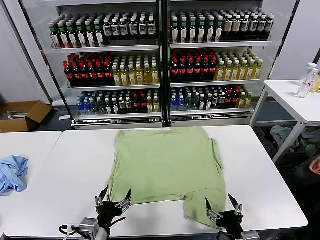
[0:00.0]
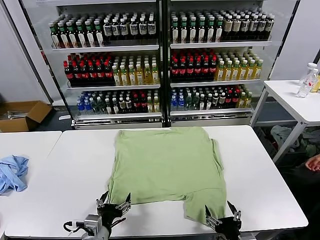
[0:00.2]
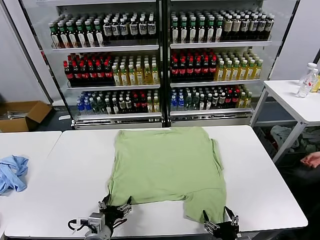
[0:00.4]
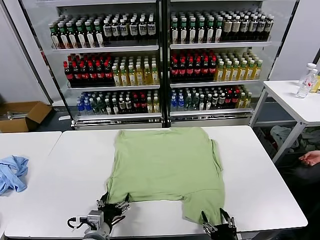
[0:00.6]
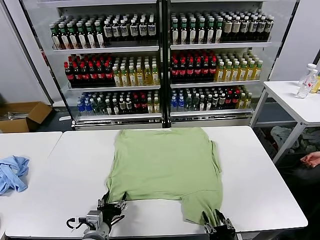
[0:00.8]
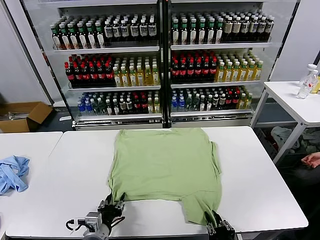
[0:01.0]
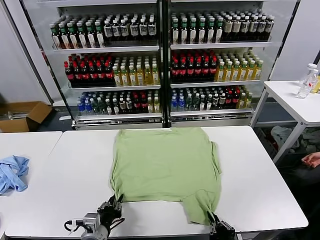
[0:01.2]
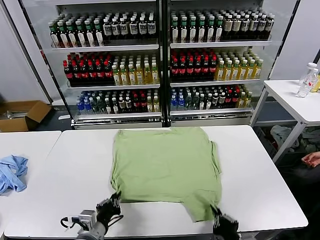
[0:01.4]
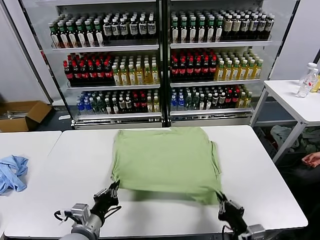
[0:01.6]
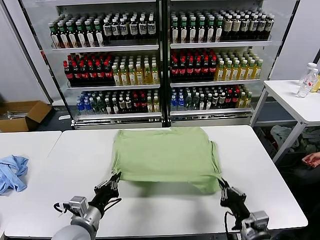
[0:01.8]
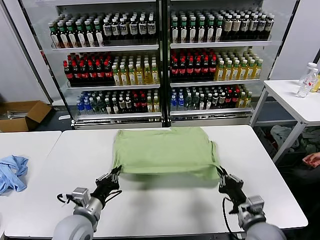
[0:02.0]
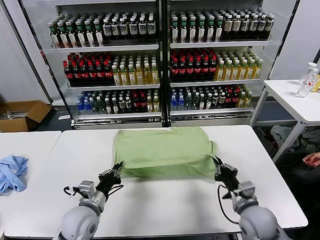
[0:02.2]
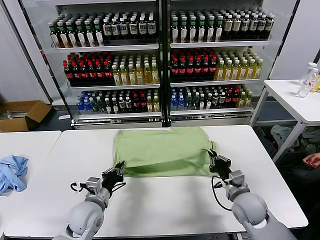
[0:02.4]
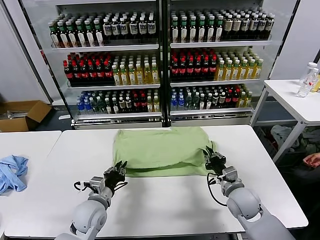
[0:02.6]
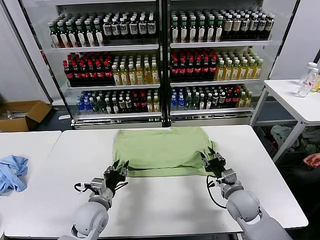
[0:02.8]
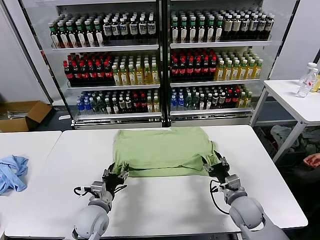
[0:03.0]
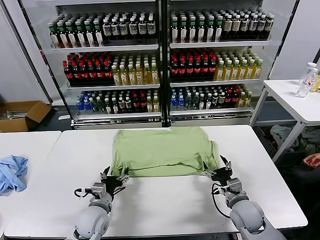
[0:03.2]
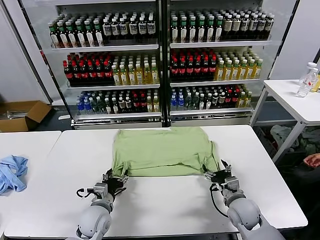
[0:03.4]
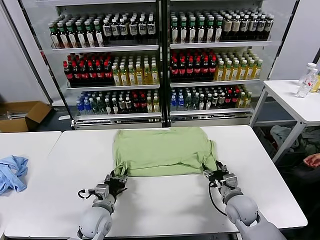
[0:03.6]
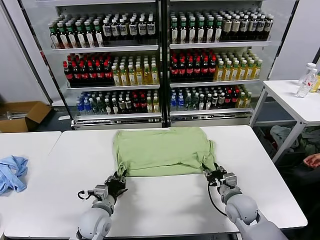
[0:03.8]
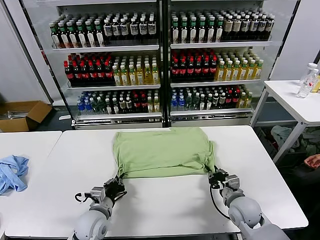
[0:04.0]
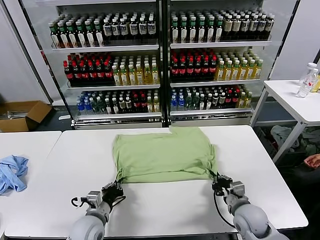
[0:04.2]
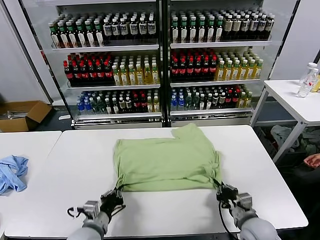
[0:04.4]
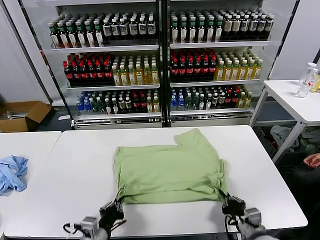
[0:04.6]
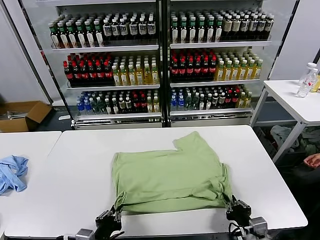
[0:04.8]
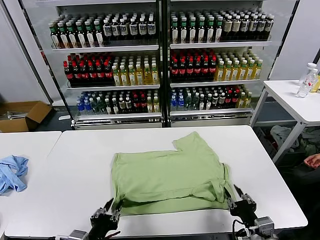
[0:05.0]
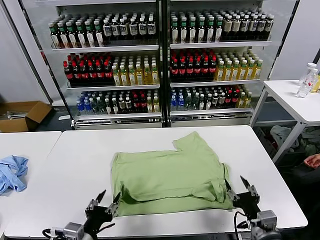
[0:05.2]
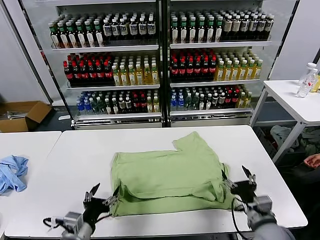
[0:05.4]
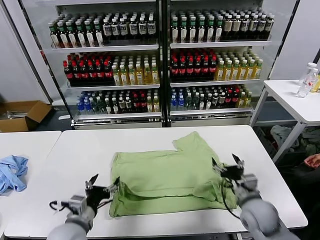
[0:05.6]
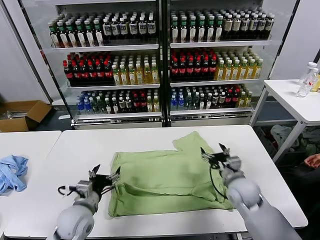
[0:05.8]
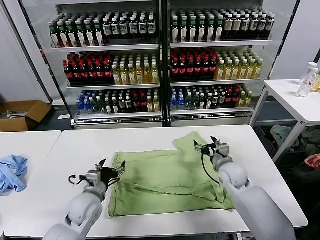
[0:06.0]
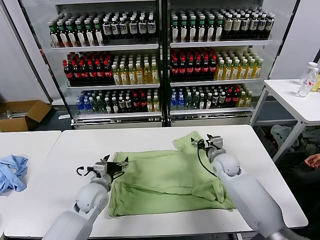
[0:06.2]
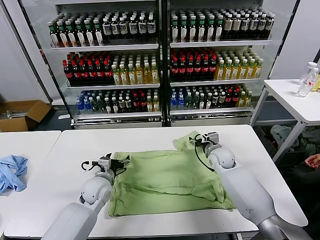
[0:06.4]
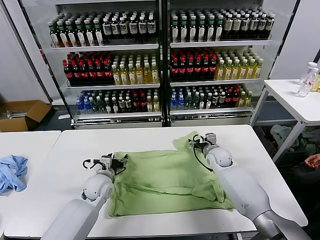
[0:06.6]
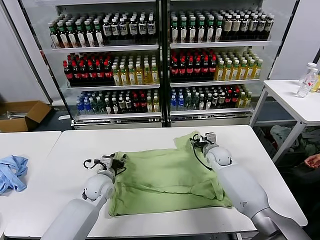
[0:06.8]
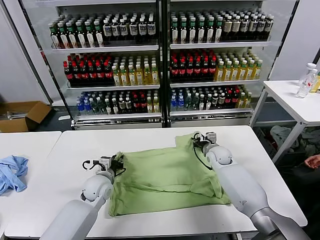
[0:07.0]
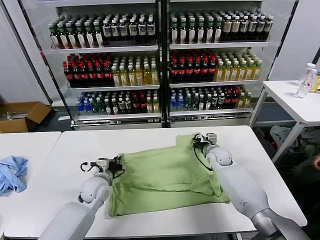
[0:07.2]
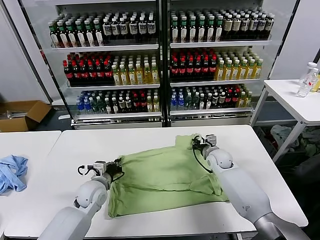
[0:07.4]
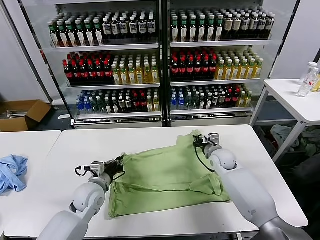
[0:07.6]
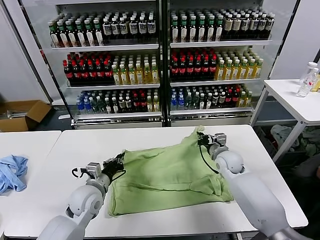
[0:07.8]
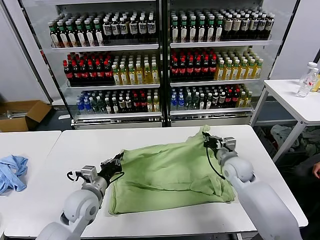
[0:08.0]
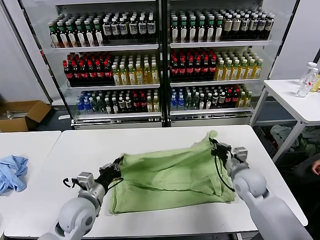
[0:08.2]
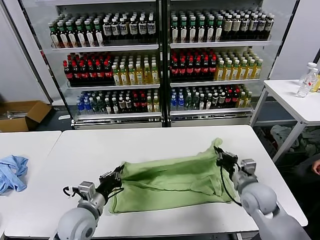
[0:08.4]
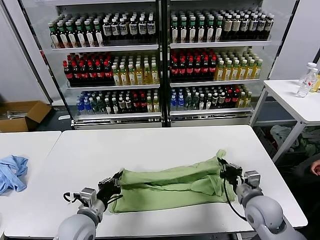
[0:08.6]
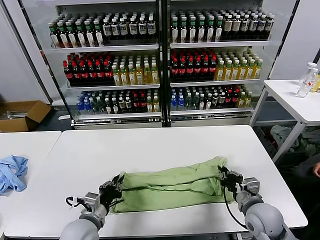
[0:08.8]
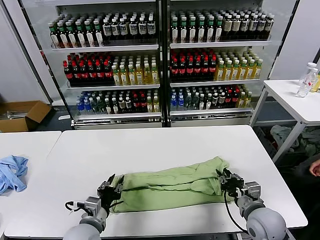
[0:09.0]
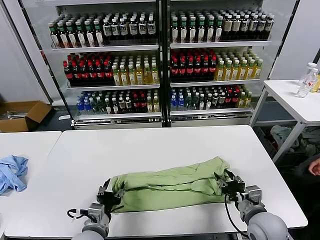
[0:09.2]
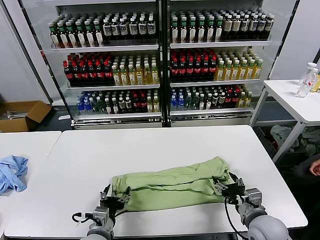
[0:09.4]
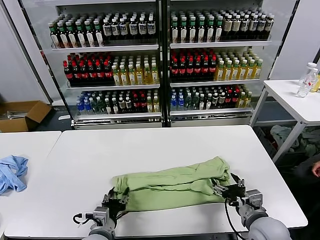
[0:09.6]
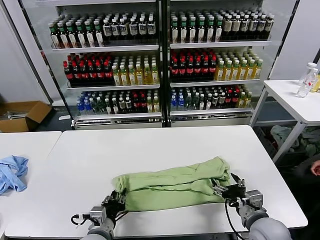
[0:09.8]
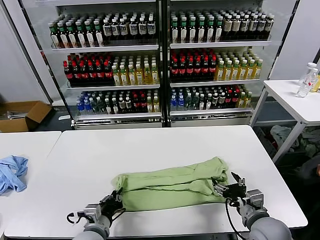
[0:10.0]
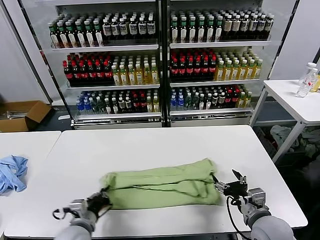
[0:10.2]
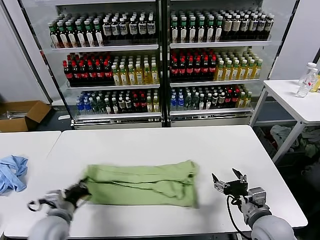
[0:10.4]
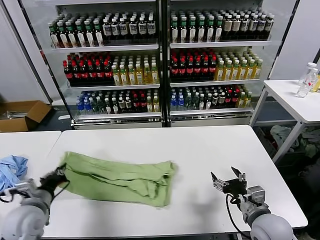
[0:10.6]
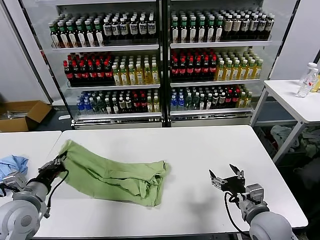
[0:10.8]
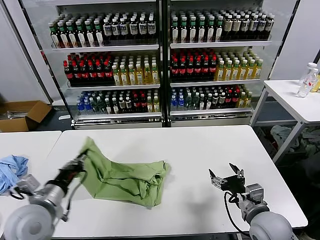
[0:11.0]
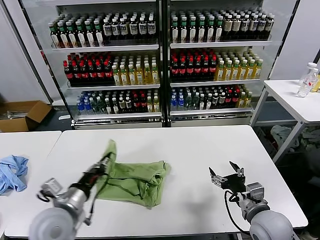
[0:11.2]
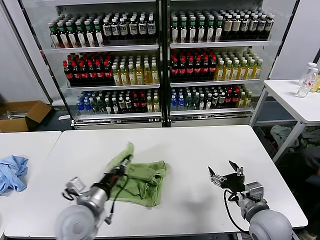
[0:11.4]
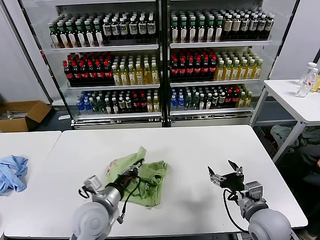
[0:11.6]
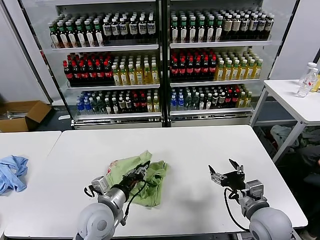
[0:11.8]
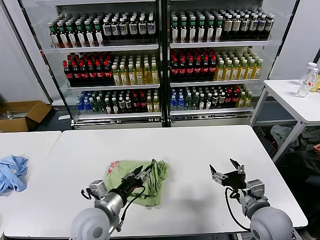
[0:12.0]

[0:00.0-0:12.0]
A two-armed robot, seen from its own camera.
Task of the whole recording: fold and organize the clothes.
Step, 0:00.0 to 0:01.4: use both grippers simultaneously to clamp the lower edge of the clothing fabric.
Step, 0:01.6 to 0:03.2: use both grippers to drag the lower edge of the fabric forward and fold it over the upper edge.
Step, 0:03.4 to 0:05.2: Drag the clothes downward with both gripper.
Step, 0:05.4 to 0:07.2: use both grippers simultaneously to clamp the upper edge of the clothing fabric.
Step, 0:07.4 to 0:09.2: use both grippers to drag the upper edge of the fabric backward and fold it over the lower edge.
Step, 0:09.4 to 0:10.0: use the left gripper to clamp the left edge of the fabric.
Step, 0:10.2 to 0:12.0: use the left gripper to drag the left edge of the fabric to the left and folds it over the right edge.
0:01.6 to 0:03.0: The left gripper moves forward and downward, roughly 10 cm, and opens up, while the right gripper shifts roughly 15 cm forward, and opens up.
0:03.0 to 0:04.4: Both grippers travel together backward, roughly 10 cm. The left gripper closes its fingers. Meanwhile the right gripper closes its fingers.
0:04.4 to 0:06.0: The left gripper moves forward, some 10 cm, and opens. Meanwhile the right gripper is displaced forward by about 25 cm, and opens.
0:06.0 to 0:07.6: The right gripper closes its fingers. Meanwhile the left gripper closes its fingers.
0:07.6 to 0:09.0: The right gripper travels backward by roughly 25 cm, and opens, while the left gripper moves backward, about 15 cm, and opens up.
0:09.0 to 0:10.4: The left gripper is displaced to the left by roughly 10 cm, and closes its fingers; the right gripper opens.
0:10.4 to 0:12.0: The left gripper shifts about 15 cm to the right, and opens its fingers.

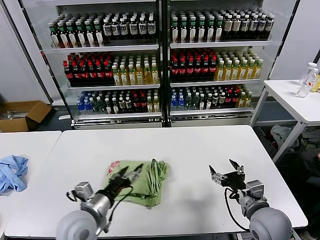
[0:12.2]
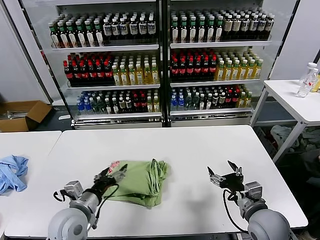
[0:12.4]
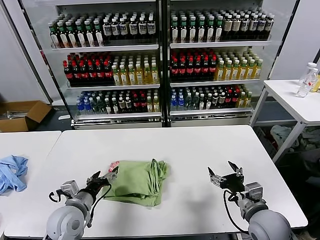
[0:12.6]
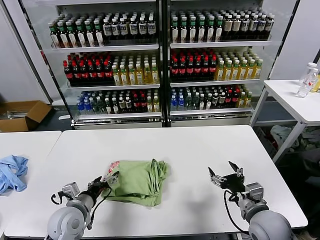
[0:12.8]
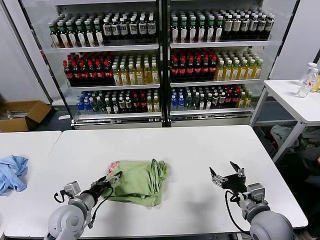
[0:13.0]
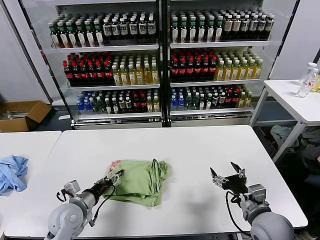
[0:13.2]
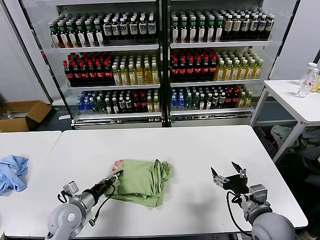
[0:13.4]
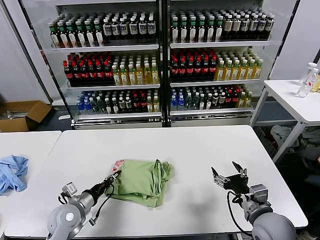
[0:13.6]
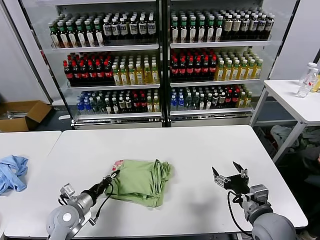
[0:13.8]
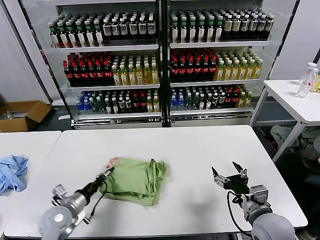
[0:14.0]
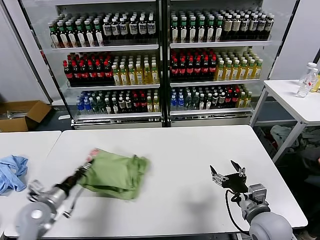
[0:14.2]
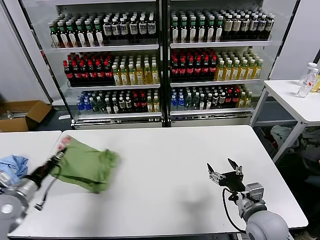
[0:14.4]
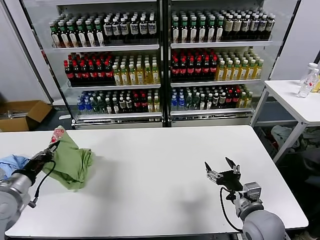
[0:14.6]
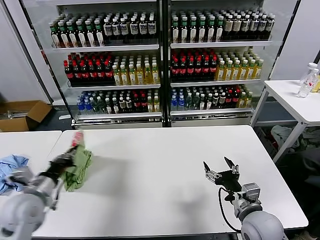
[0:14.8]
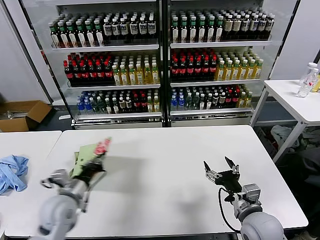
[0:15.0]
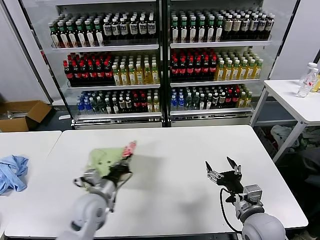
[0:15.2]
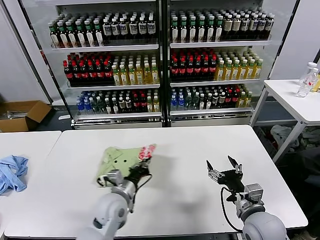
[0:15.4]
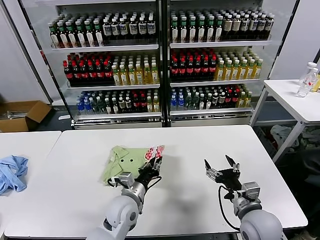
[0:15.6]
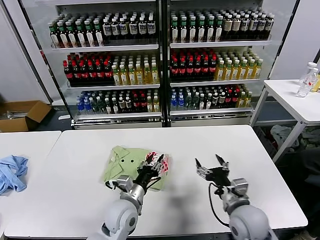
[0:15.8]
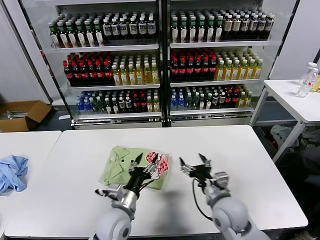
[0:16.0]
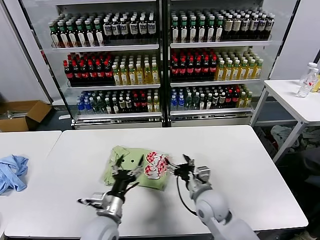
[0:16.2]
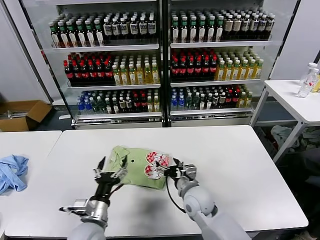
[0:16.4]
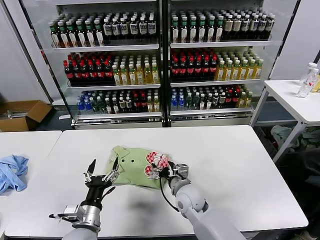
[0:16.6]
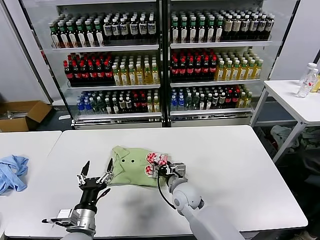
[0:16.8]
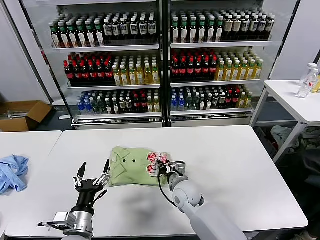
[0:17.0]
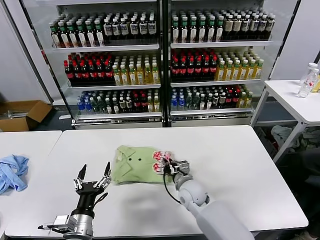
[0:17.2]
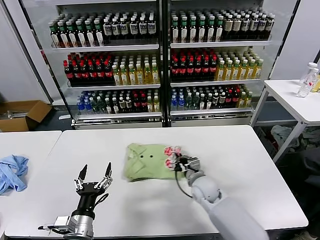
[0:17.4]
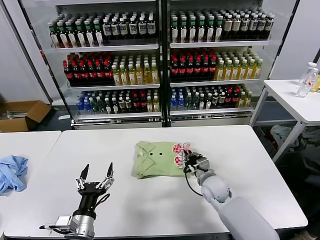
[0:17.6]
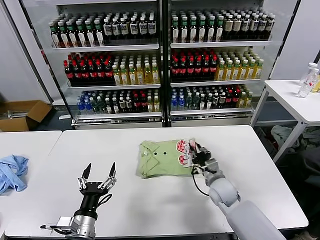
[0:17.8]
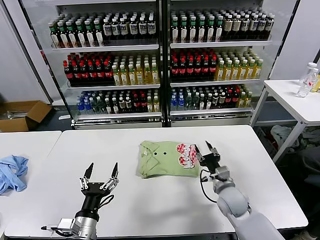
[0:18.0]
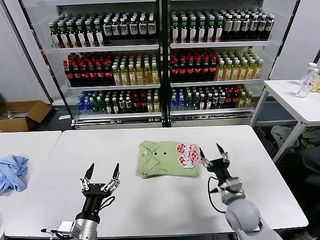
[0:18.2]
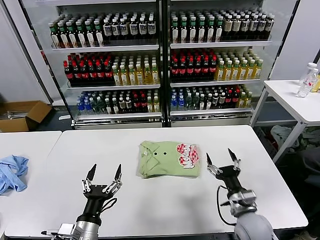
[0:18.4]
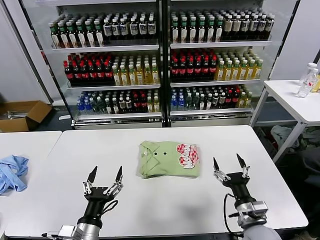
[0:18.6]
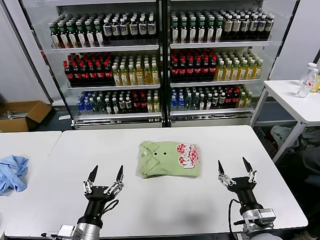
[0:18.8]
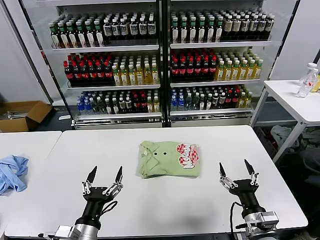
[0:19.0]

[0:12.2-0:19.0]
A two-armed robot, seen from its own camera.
Task of the whole recording: fold and organize the clothes.
Step, 0:12.2 to 0:15.8: Flip the folded clothes over with left gripper.
Step, 0:16.0 to 0:17.8: Drag the clothes to the center of the table.
0:12.2 to 0:13.6: The left gripper is displaced to the left, downward and forward by approximately 15 cm, and closes up.
0:13.6 to 0:15.0: The left gripper goes about 10 cm upward, and reaches some 15 cm to the left, then returns.
0:15.0 to 0:16.2: The left gripper moves to the right and downward, some 15 cm, and opens up; the right gripper travels to the left and forward by some 15 cm.
0:16.2 to 0:17.6: The left gripper heads backward and to the left, covering approximately 10 cm. Meanwhile the right gripper heads forward and downward, covering approximately 10 cm, and closes up.
0:17.6 to 0:19.0: The right gripper travels backward and to the right by about 25 cm, and opens up, while the left gripper shifts by about 5 cm.
